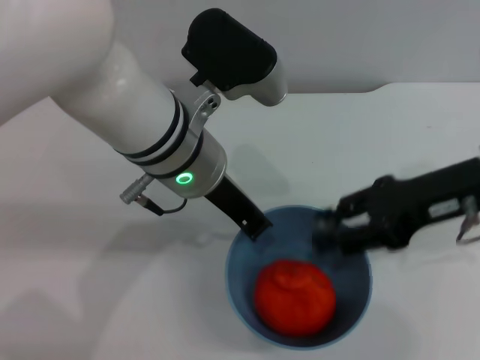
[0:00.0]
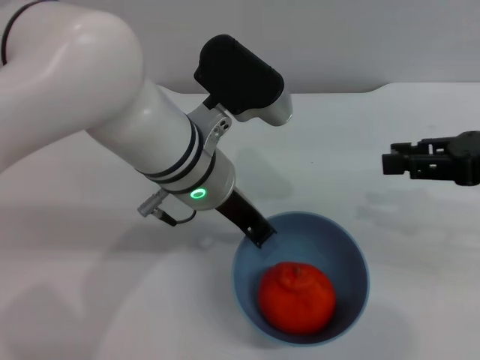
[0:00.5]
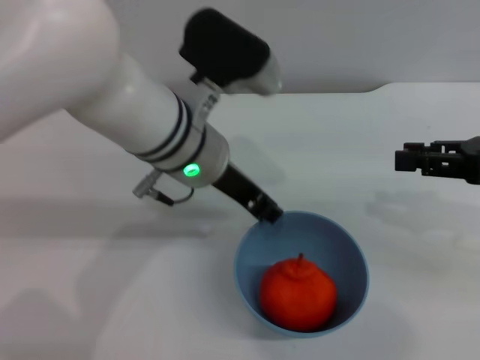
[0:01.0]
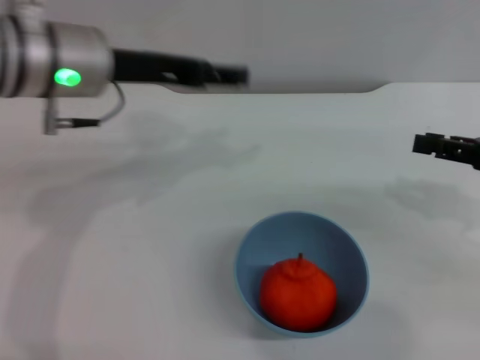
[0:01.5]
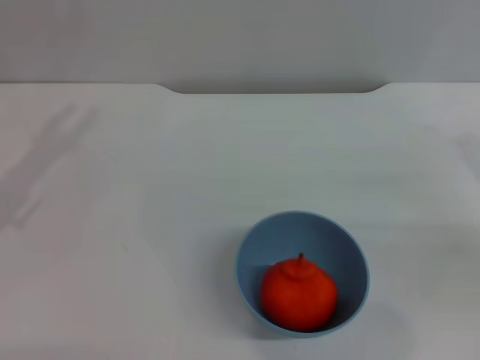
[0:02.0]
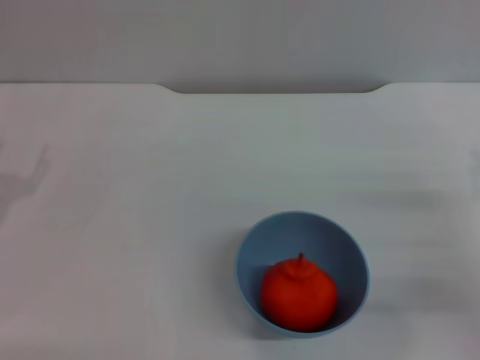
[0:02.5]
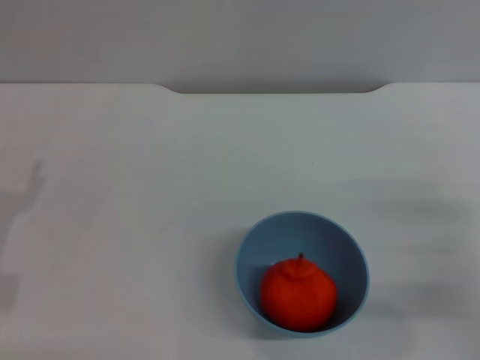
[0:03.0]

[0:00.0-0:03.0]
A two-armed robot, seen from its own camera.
Task of the whole recording: put the orange into the blue bowl and pour it out repeatedly.
Step, 0:00.5 to 0:01.0: Place the bowl on the table.
0:00.0 to 0:01.5: The left gripper goes some 10 cm to the left, and opens up, while the right gripper goes about 10 cm to the right.
0:01.5 to 0:03.0: The right gripper heads downward and backward, covering roughly 15 cm. The left gripper is displaced downward, to the left and backward by approximately 25 cm.

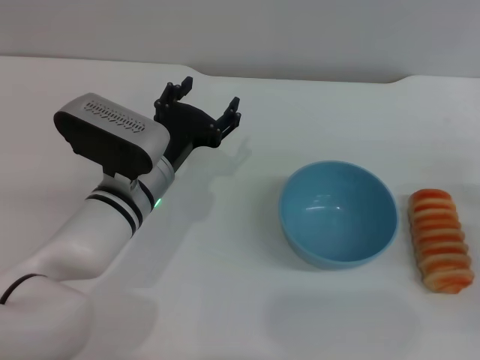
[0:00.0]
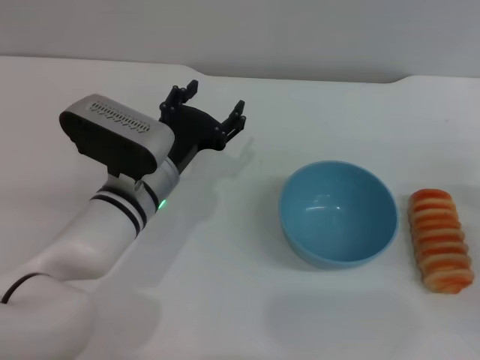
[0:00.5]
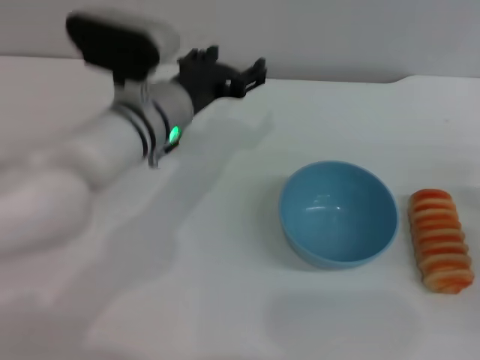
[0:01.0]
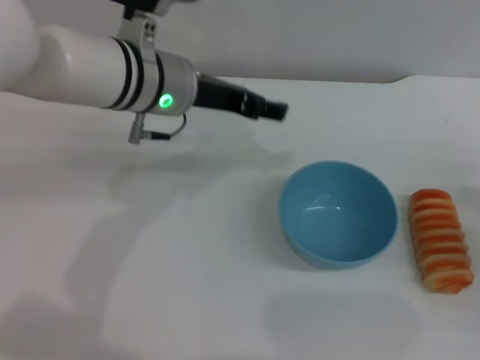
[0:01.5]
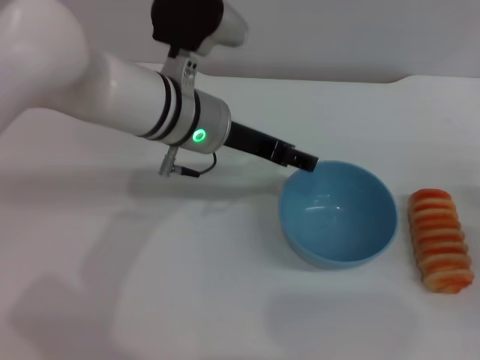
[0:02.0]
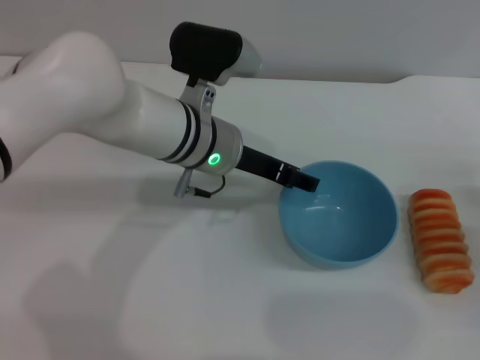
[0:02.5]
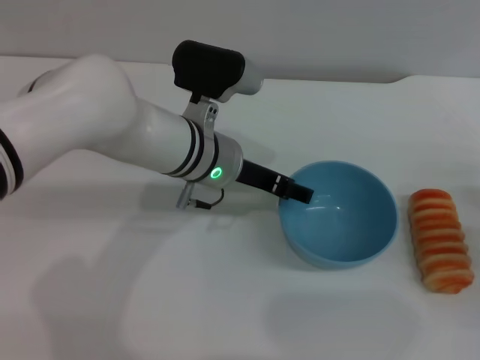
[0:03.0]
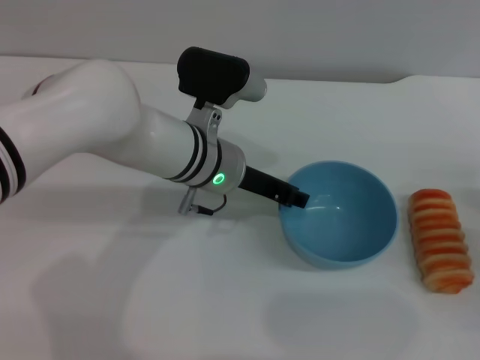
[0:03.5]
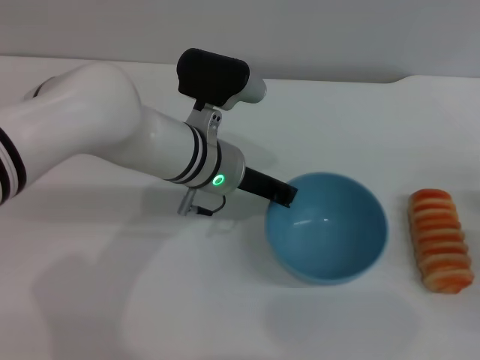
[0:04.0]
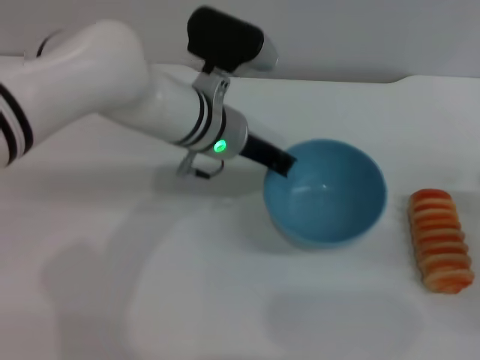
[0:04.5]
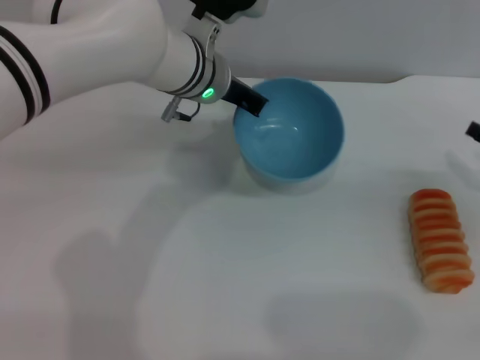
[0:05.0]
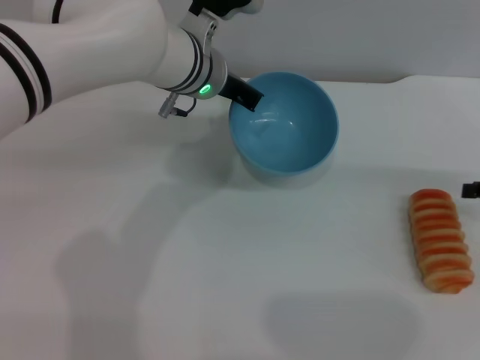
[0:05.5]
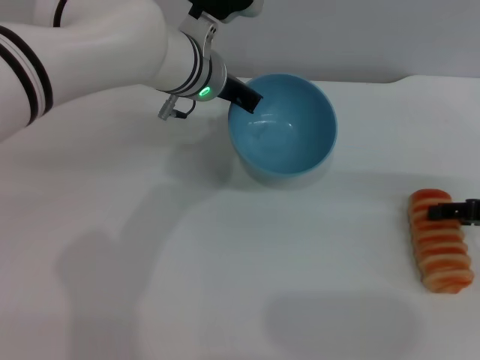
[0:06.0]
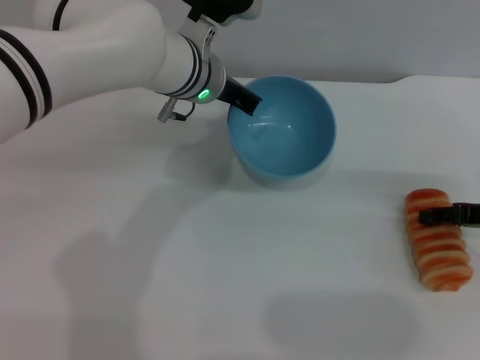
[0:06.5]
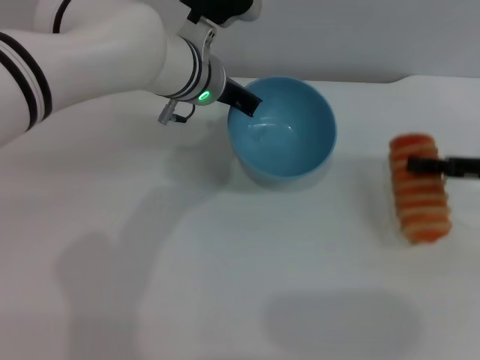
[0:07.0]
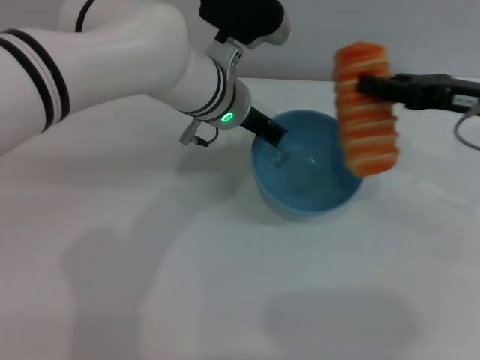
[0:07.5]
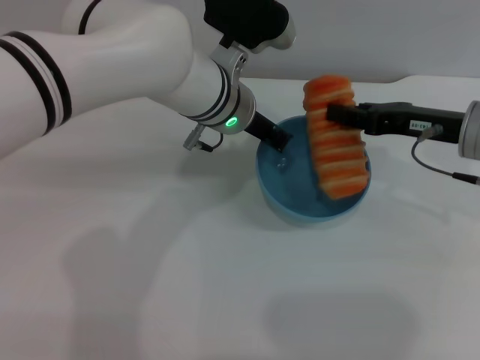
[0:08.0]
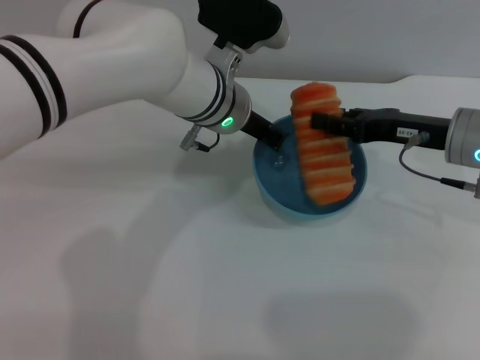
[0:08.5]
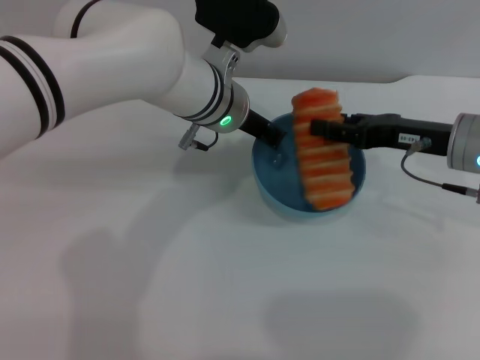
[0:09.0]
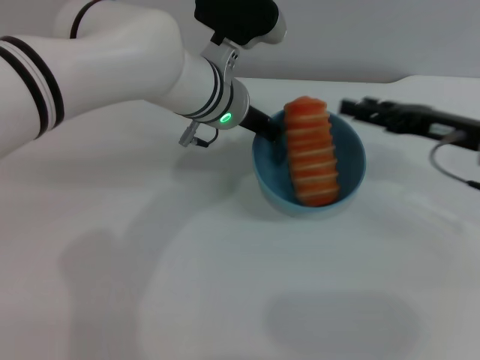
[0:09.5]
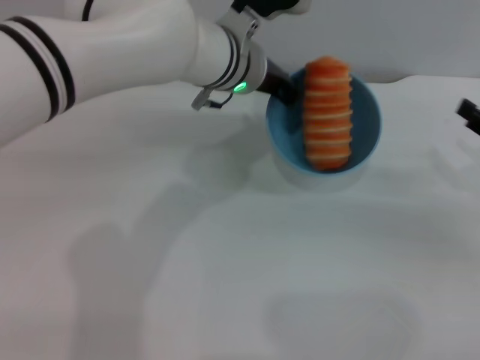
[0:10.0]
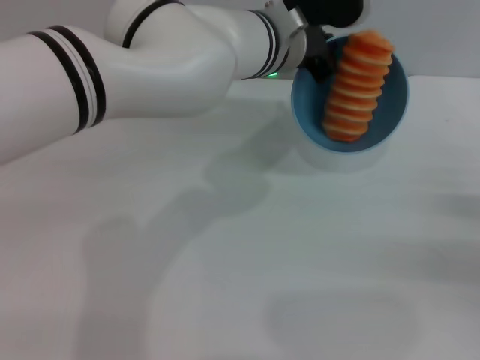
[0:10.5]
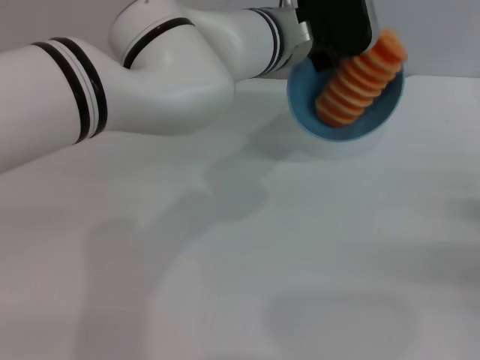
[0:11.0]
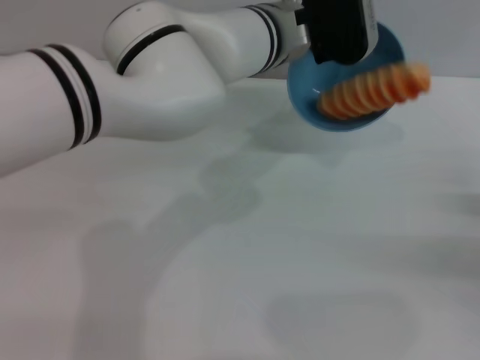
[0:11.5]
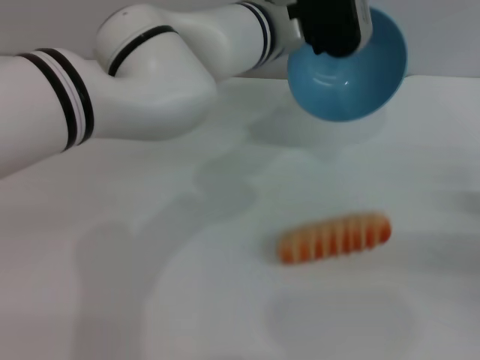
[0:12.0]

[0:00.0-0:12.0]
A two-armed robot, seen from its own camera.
Task of the whole recording: put the bread into the blue bowl and pour it out repeatedly.
Step, 0:00.0 to 0:04.5: Pick up the bowl with the left gripper.
Step, 0:05.0 to 0:07.0: Pick up the bread with the right gripper.
Step, 0:07.5 to 0:09.0: Place the bread into the bowl.
0:00.0 to 0:02.0: The left gripper is displaced upward and forward by approximately 10 cm.
0:02.0 to 0:04.0: The left gripper moves downward, about 5 cm, and closes its fingers.
0:04.0 to 0:06.0: The left gripper moves forward and upward, about 10 cm. The right gripper goes approximately 10 cm upward and forward.
0:06.0 to 0:08.0: The right gripper goes roughly 10 cm to the left, and closes.
0:08.0 to 0:10.0: The right gripper goes some 15 cm to the right and backward, and opens.
0:10.0 to 0:12.0: The right gripper goes roughly 5 cm downward.

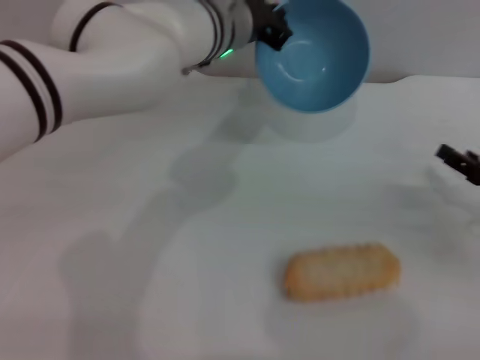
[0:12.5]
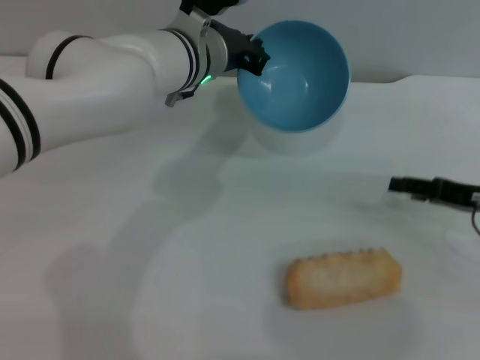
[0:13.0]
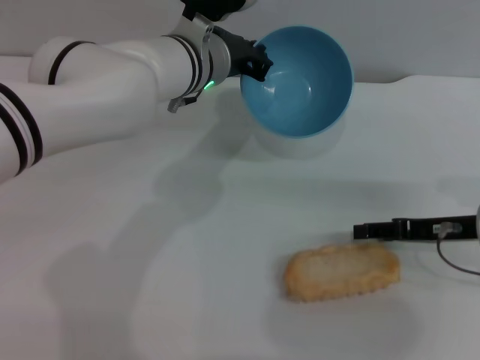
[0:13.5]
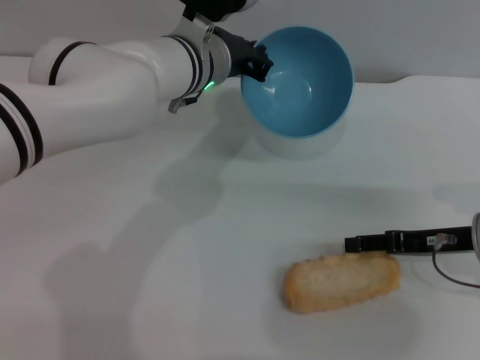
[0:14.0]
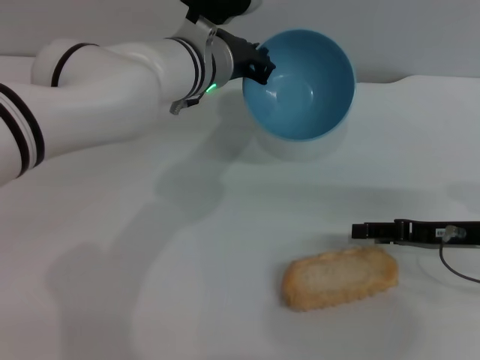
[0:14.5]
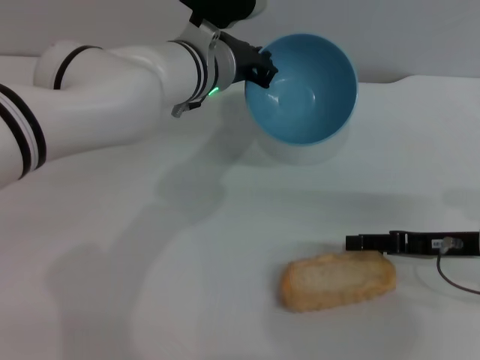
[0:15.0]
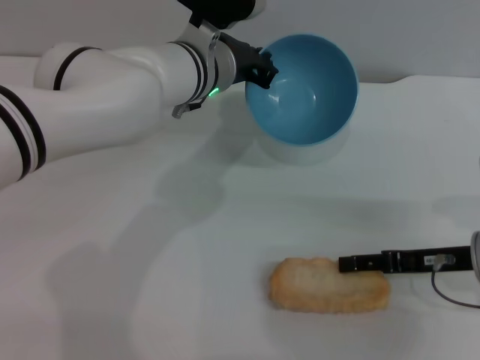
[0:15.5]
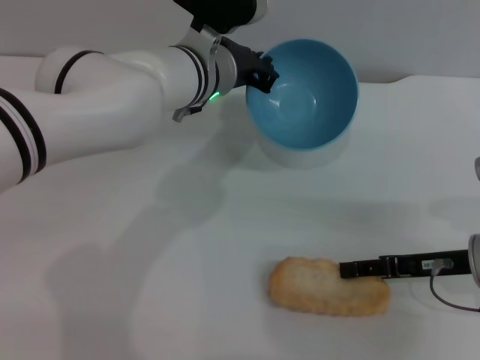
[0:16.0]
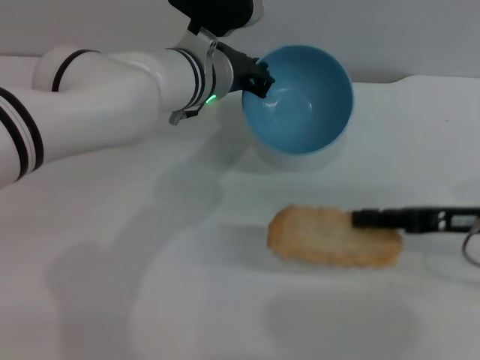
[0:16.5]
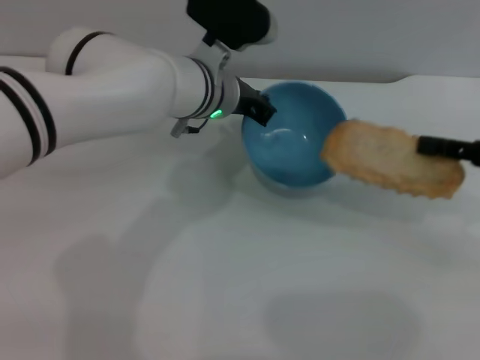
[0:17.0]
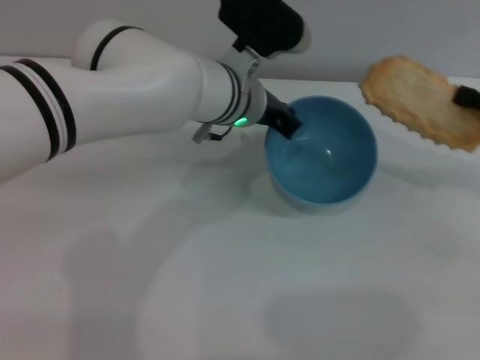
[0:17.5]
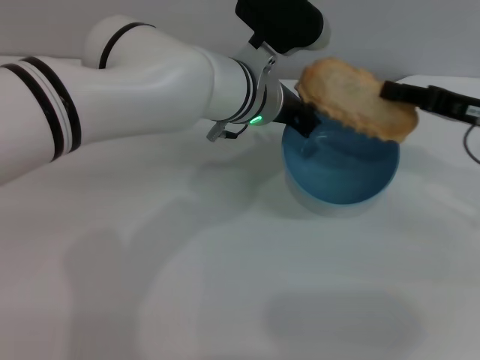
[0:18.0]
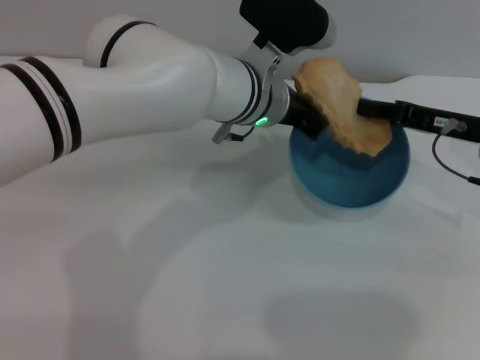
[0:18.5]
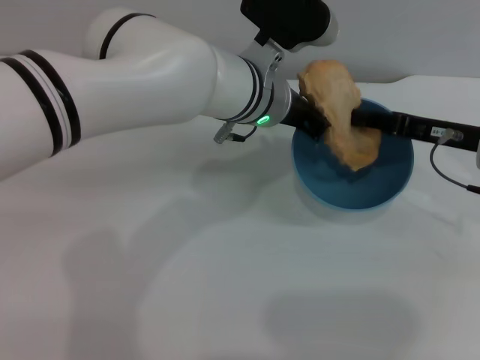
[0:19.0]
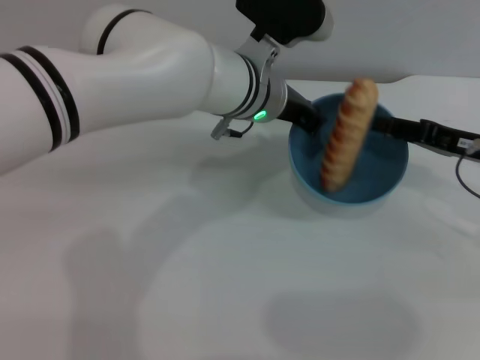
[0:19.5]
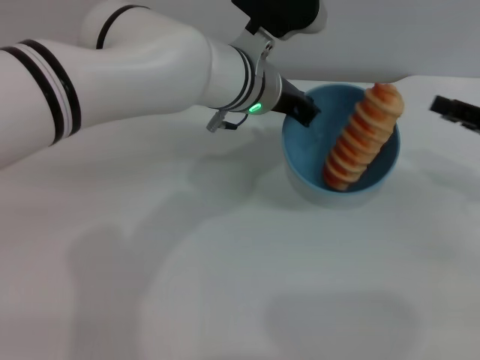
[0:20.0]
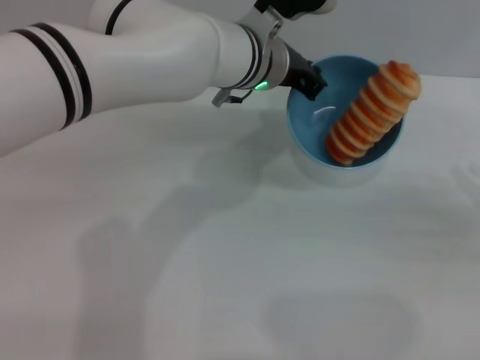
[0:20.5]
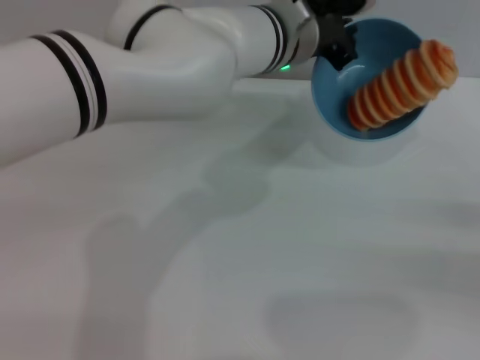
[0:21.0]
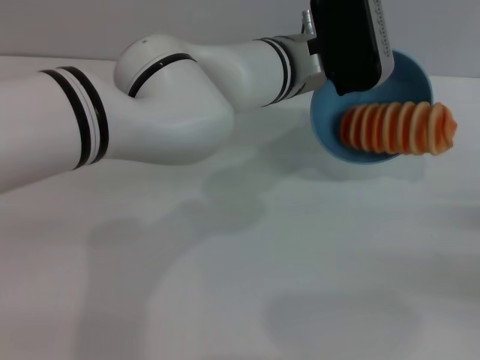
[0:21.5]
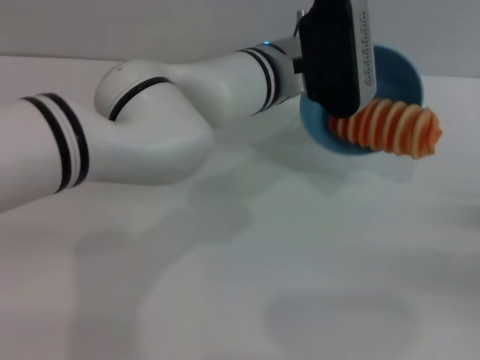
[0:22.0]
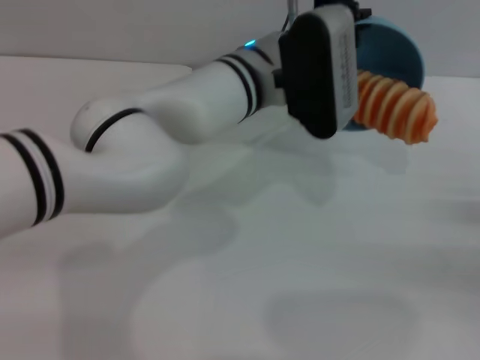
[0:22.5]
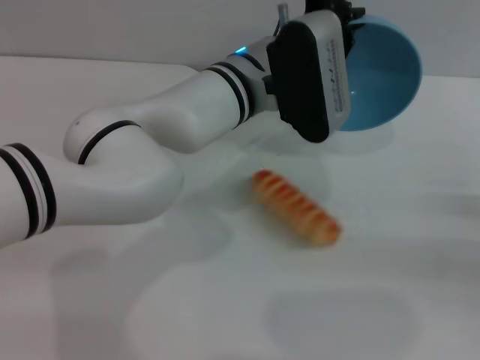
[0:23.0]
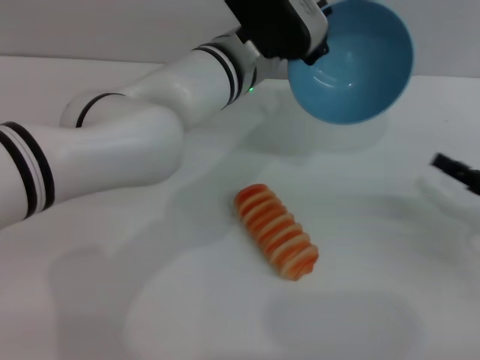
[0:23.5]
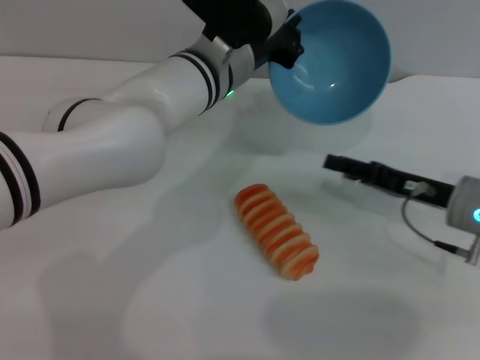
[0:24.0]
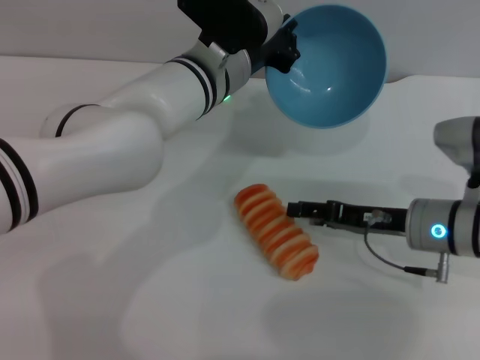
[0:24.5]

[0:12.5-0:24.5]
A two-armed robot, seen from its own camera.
Task of the whole recording: put the bread into the blue bowl and pour it out repeatedly.
Step, 0:12.5 to 0:16.5: Pick up the bread with the right gripper.
Step, 0:17.0 to 0:20.0: Place the bread into the bowl.
Step, 0:20.5 to 0:23.0: Pour the bread out of the bowl.
0:12.5 to 0:14.5: The right gripper shifts about 5 cm to the left.
0:14.5 to 0:16.5: The right gripper closes its fingers.
0:16.5 to 0:18.5: The left gripper is displaced to the right by about 5 cm. The right gripper shifts roughly 5 cm forward, and goes to the right and returns, approximately 5 cm each way.
0:18.5 to 0:20.5: The right gripper goes roughly 15 cm to the right and backward, and opens.
0:20.5 to 0:22.5: The right gripper changes place by approximately 5 cm.
0:22.5 to 0:24.5: The right gripper heads to the left, covering about 20 cm.
